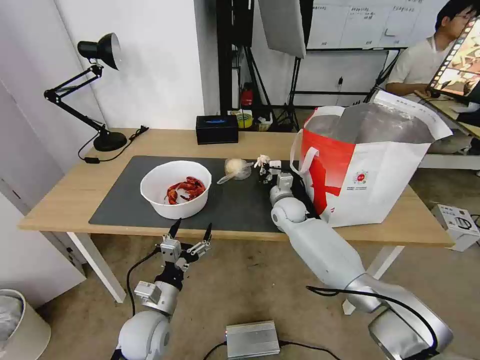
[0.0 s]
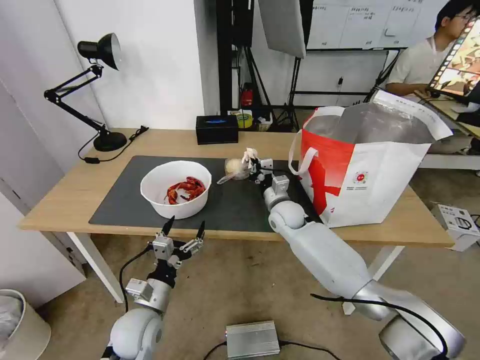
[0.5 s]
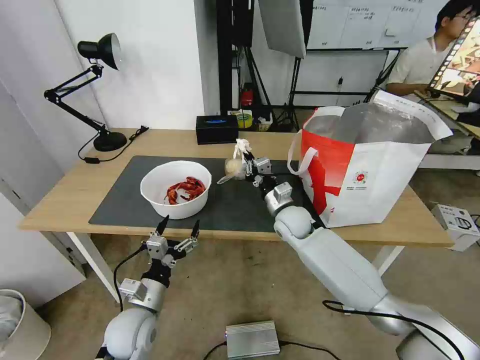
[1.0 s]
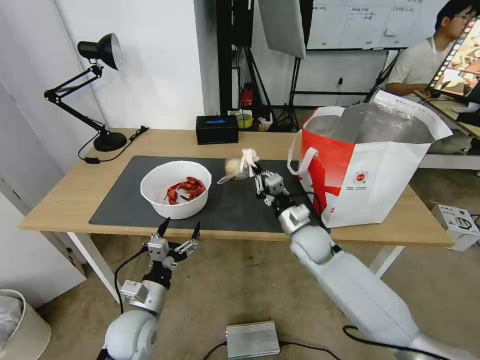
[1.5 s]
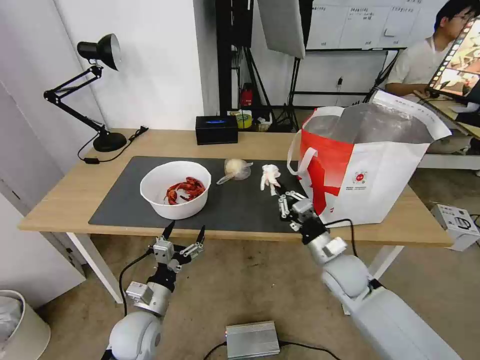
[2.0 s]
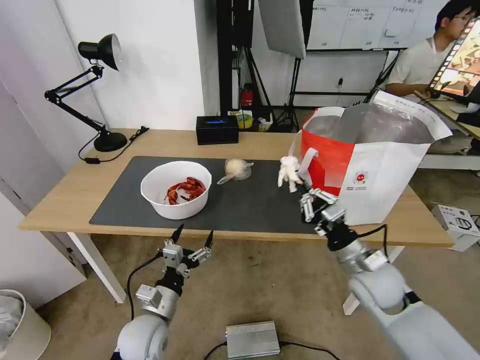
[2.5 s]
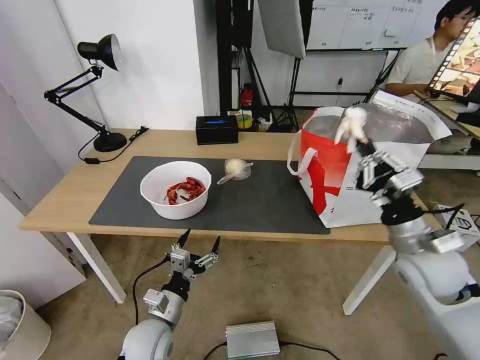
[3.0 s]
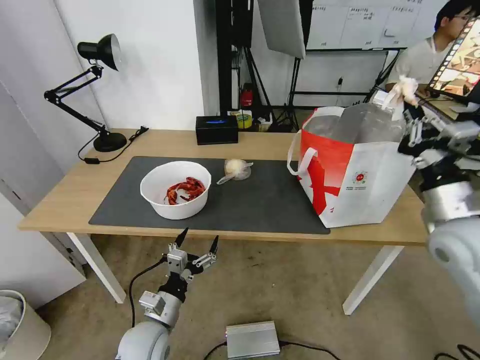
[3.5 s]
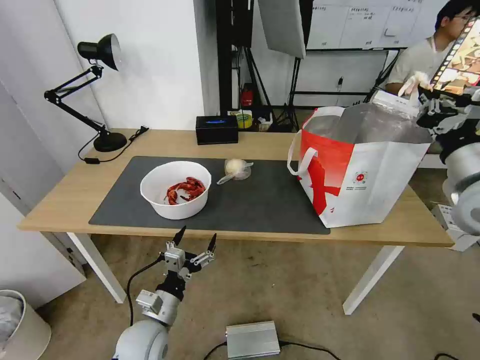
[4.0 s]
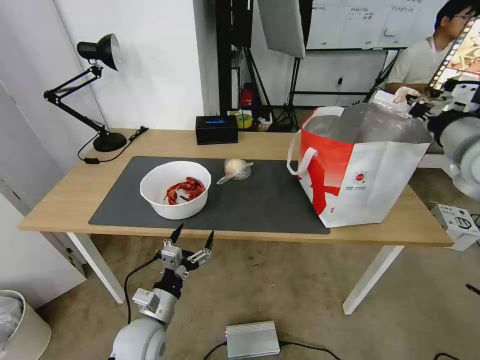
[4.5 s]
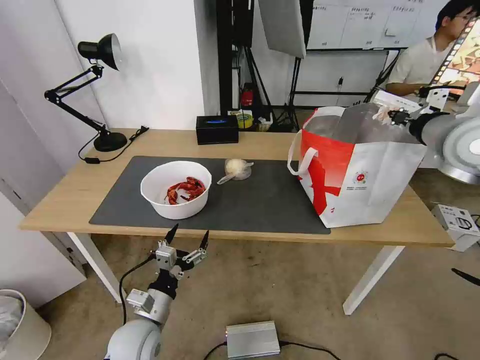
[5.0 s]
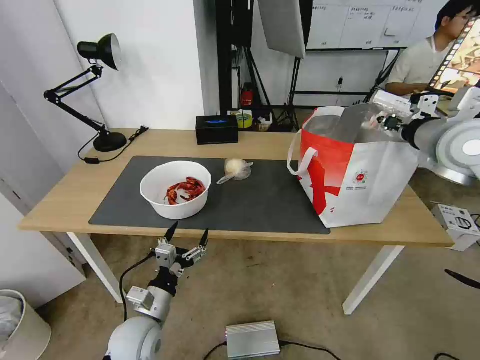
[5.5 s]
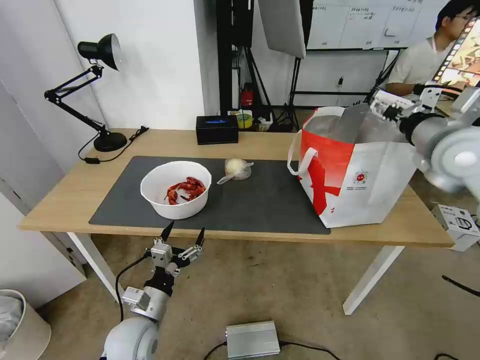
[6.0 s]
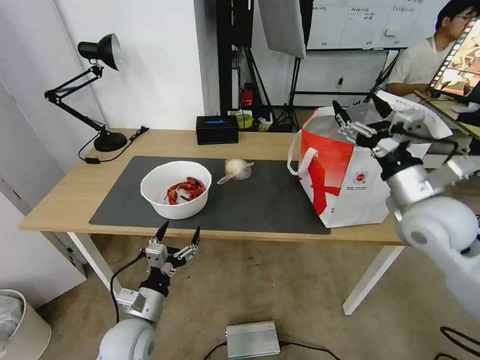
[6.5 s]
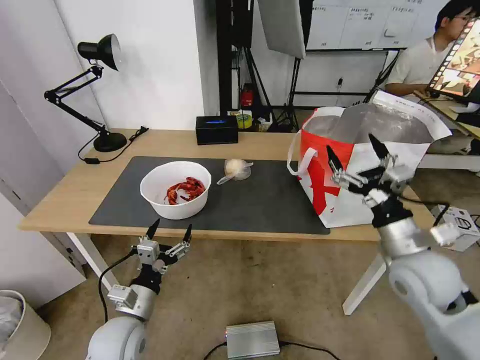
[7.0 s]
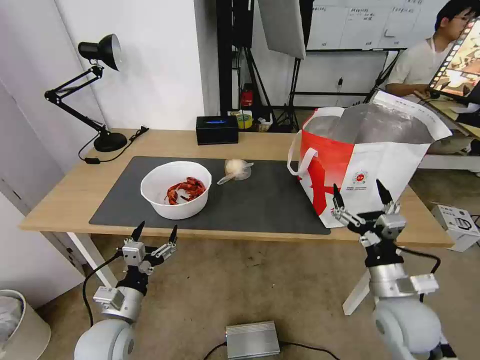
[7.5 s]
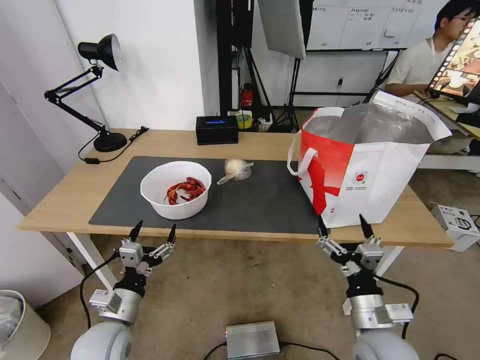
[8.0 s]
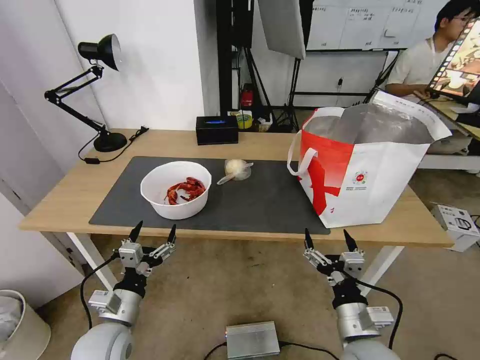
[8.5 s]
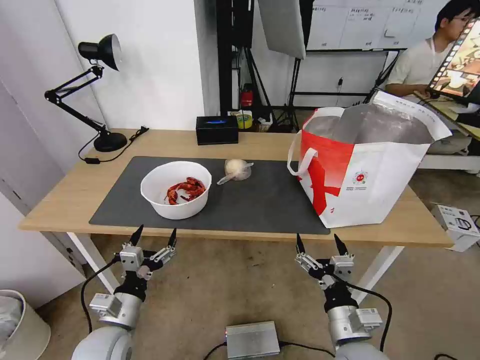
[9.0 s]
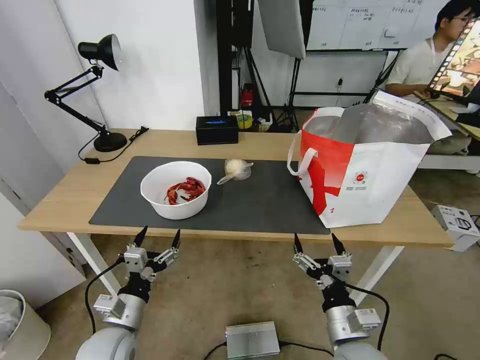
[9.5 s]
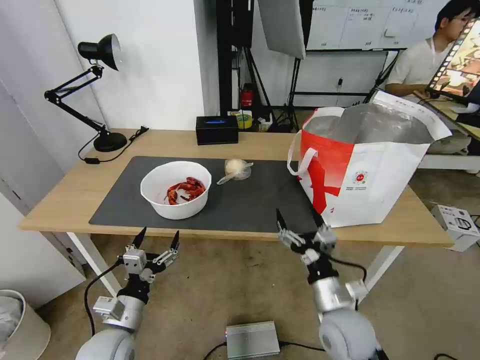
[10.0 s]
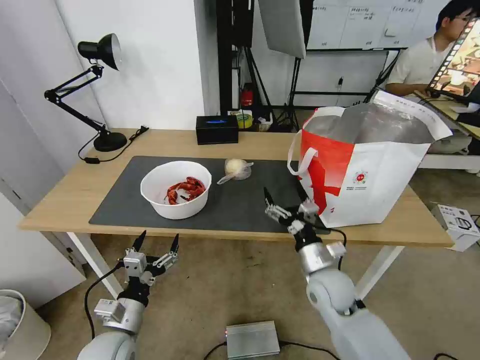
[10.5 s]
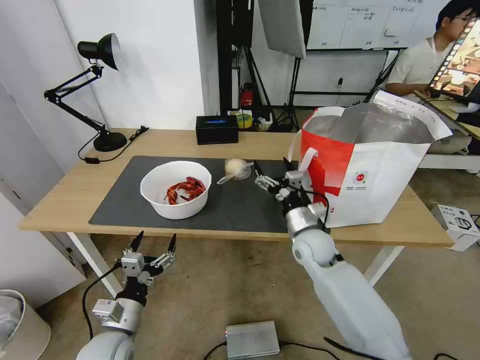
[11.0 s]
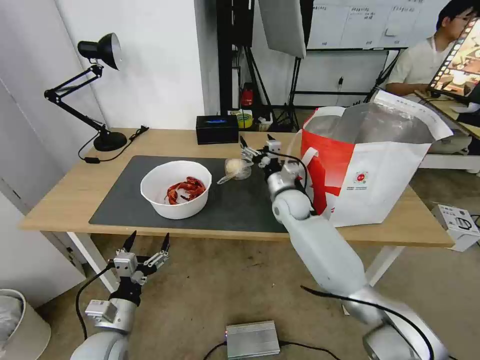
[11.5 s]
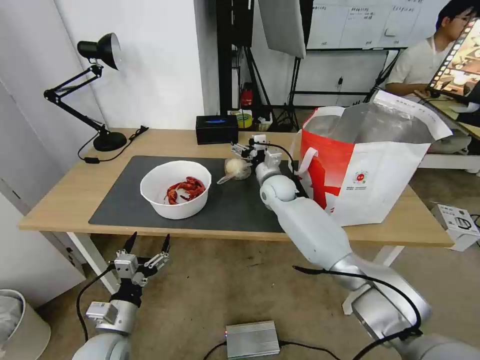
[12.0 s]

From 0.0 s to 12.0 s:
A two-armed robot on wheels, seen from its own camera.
Task of the whole recording: Pick up the trash from the table and place it into the takeout bag.
From 0.0 s to 2.0 s: The right gripper is displaced backward and to the right by some 20 cm.
From 2.0 s to 4.0 s: The right gripper travels upward and to the right by approximately 30 cm.
From 4.0 s to 6.0 s: The right gripper travels forward by some 5 cm, and opens up.
From 6.0 s to 8.0 s: The right gripper goes approximately 35 cm downward and backward, while the left gripper moves some 5 cm.
From 8.0 s to 10.0 s: The right gripper travels to the left by some 5 cm.
From 10.0 s to 12.0 s: The right gripper is displaced forward by some 35 cm.

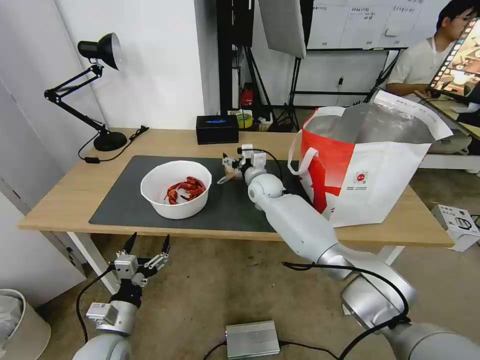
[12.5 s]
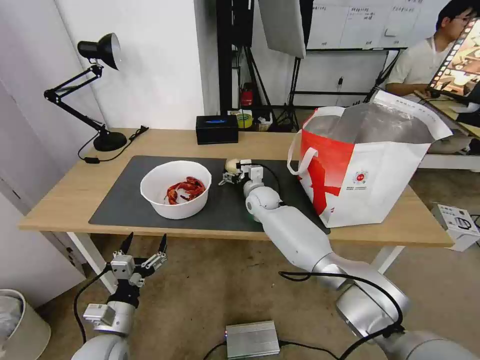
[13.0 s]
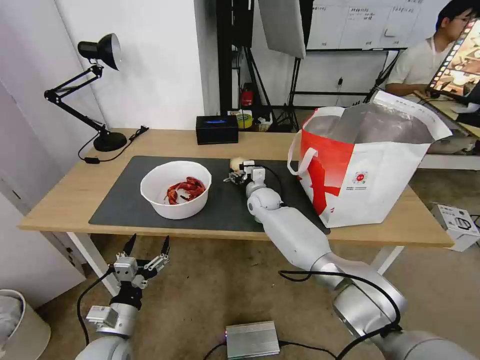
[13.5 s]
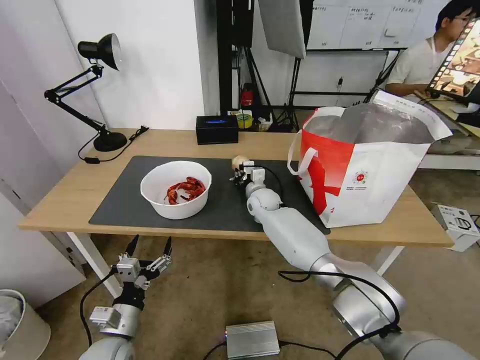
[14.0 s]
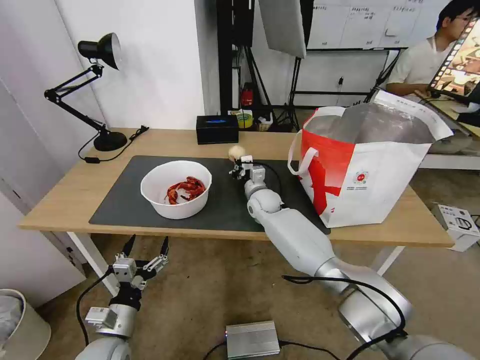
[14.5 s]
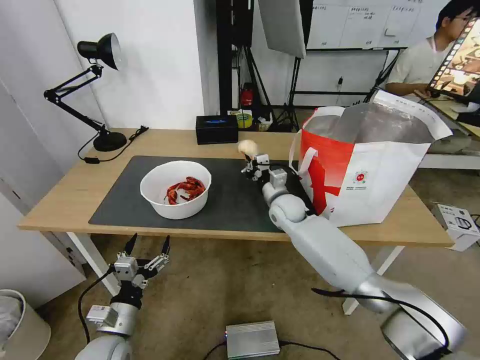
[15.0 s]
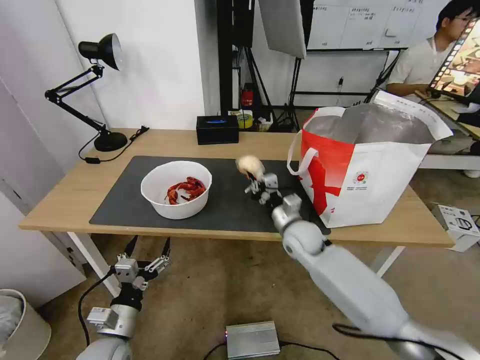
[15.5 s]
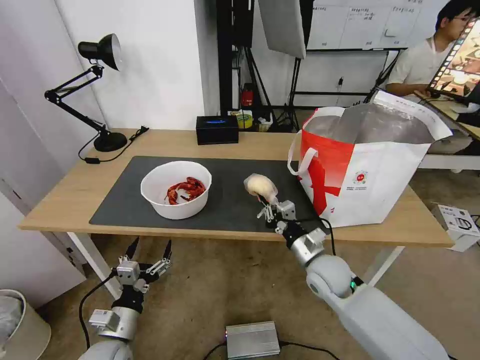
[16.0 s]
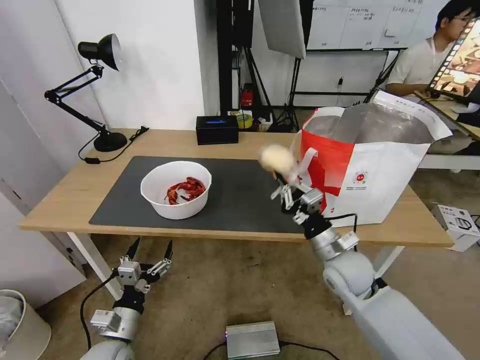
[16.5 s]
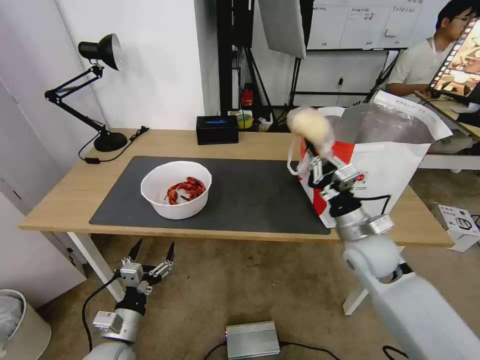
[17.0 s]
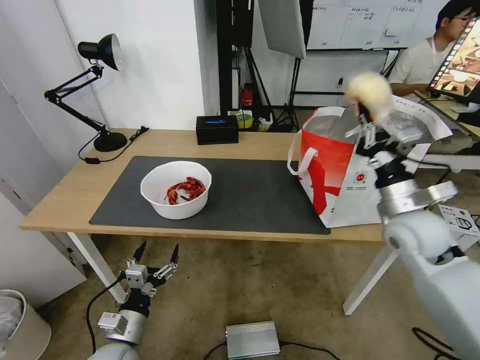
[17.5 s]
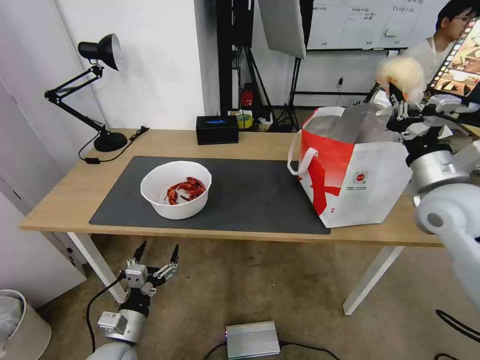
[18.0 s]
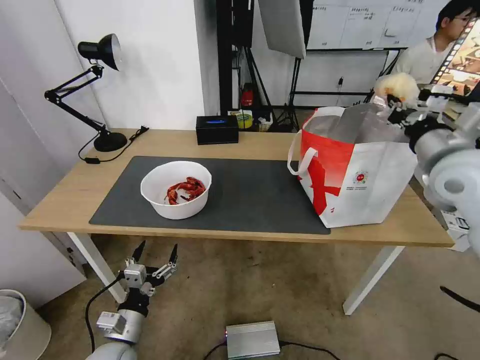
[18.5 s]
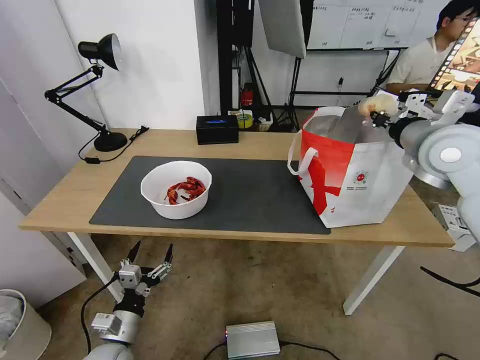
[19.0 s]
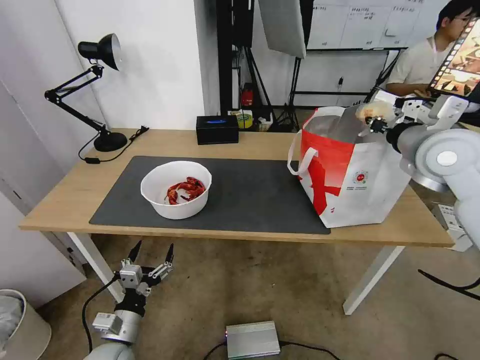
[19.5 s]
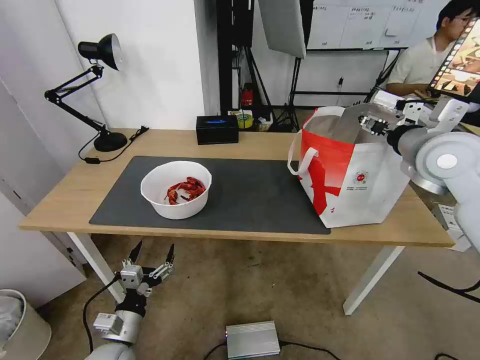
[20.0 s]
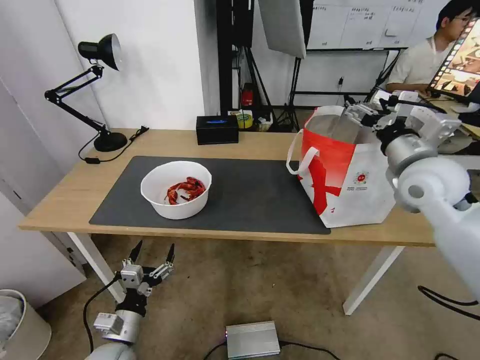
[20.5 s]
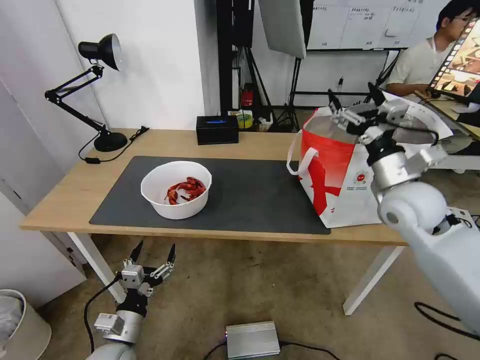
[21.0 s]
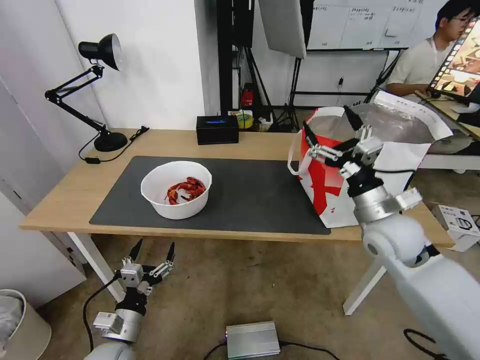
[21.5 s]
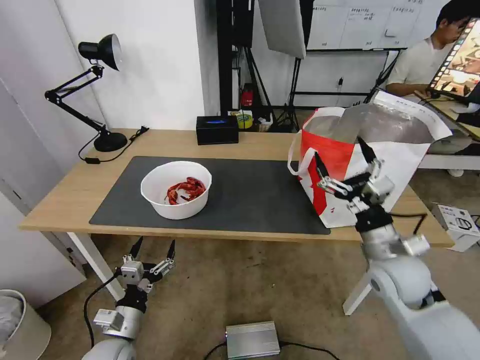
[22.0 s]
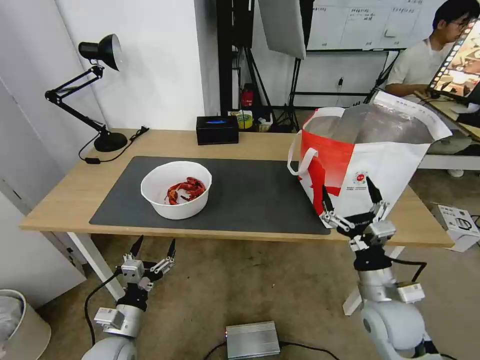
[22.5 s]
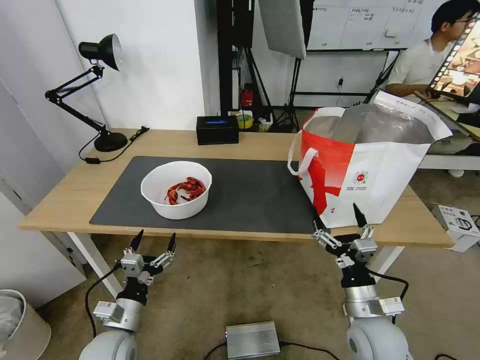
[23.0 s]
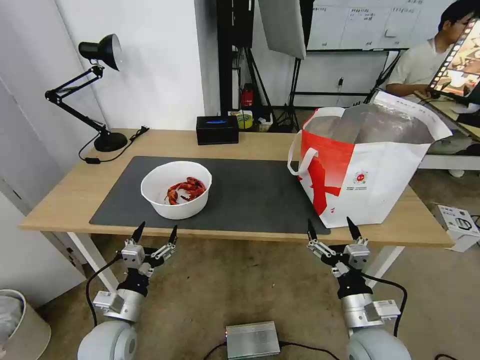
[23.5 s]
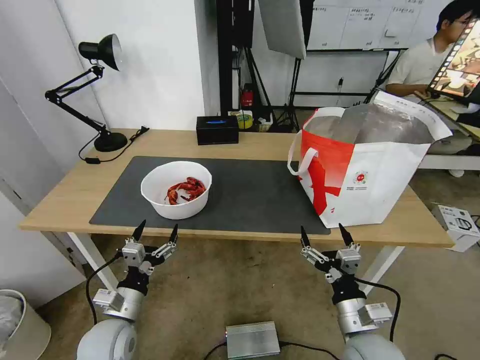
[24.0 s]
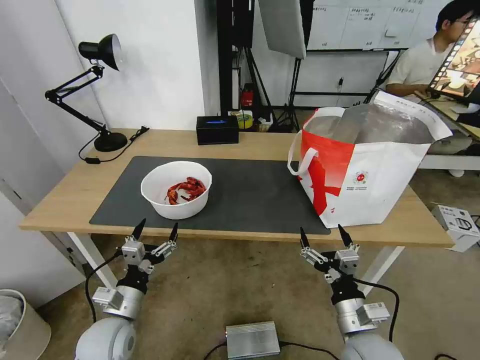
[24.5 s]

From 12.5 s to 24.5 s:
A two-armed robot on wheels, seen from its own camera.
Task of the whole recording: Pick up the trash from the table and place it into the takeout bag.
From 12.5 s to 14.5 s: The right gripper moves roughly 5 cm, and closes.
From 14.5 s to 16.5 s: The right gripper heads backward and to the right, covering some 30 cm.
From 16.5 s to 18.5 s: The right gripper travels upward and to the right by roughly 25 cm.
From 18.5 s to 20.5 s: The right gripper ends up approximately 5 cm from where it was, and opens up.
From 20.5 s to 22.5 s: The right gripper heads downward and backward, covering roughly 25 cm.
From 22.5 s to 24.5 s: The right gripper shifts approximately 10 cm backward and to the left.

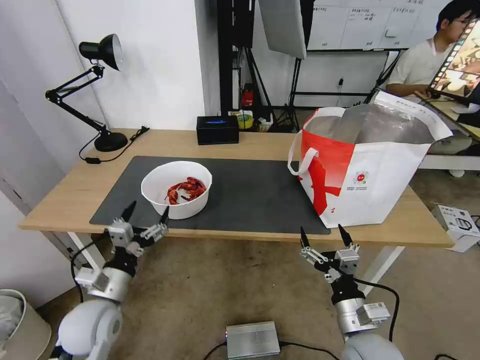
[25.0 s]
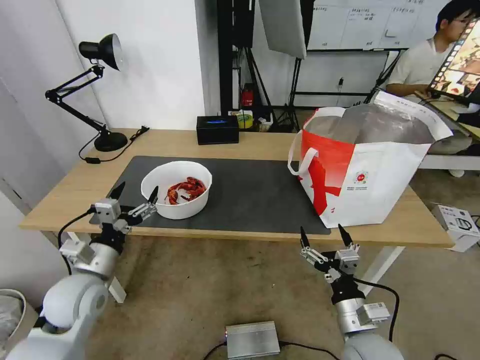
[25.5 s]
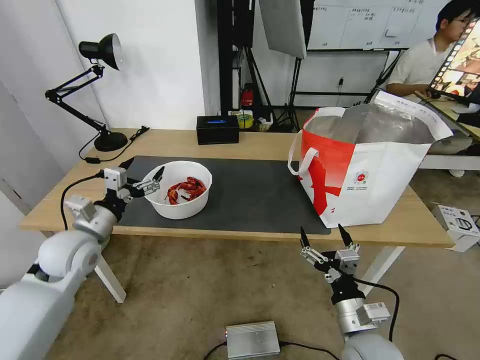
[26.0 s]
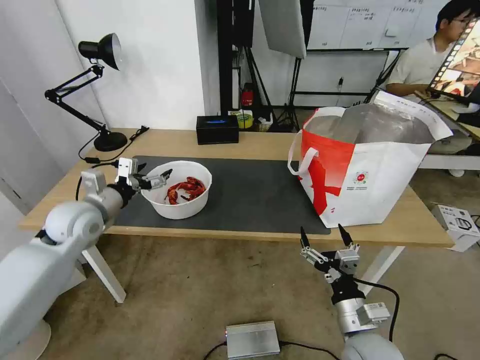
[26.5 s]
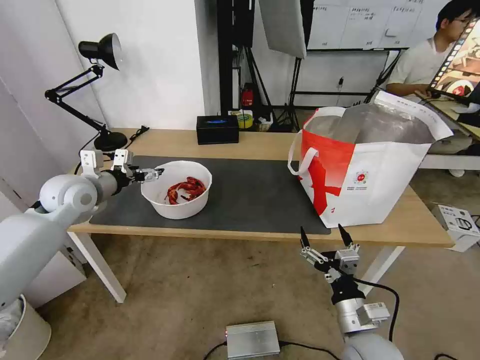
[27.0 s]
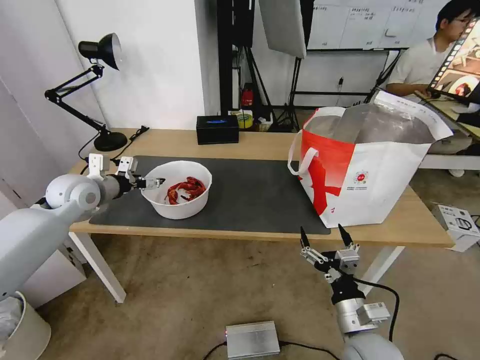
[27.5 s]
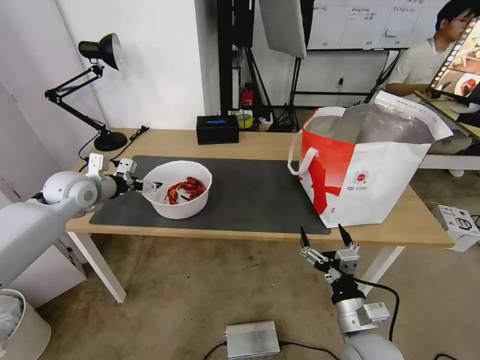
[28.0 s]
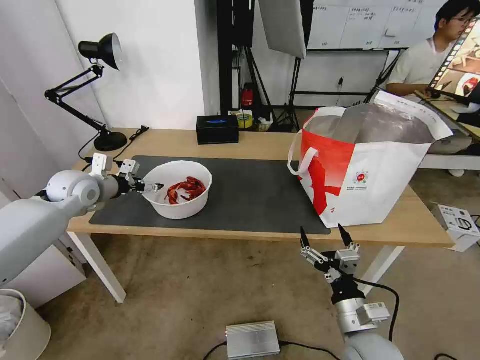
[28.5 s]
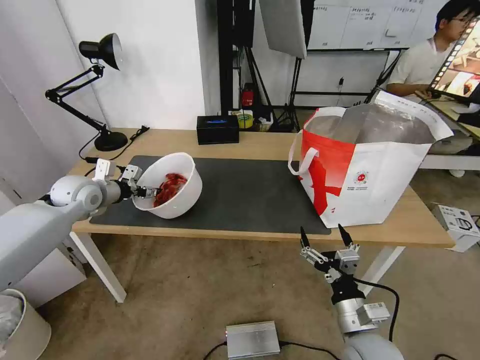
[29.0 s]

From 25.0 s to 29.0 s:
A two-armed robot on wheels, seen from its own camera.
Task of the whole recording: Pick up the trash from the table and place it into the takeout bag.
From 25.0 s to 27.0 s: The left gripper heads forward and upward, covering about 25 cm.
From 27.0 s to 29.0 s: The left gripper moves about 5 cm, and closes up.
